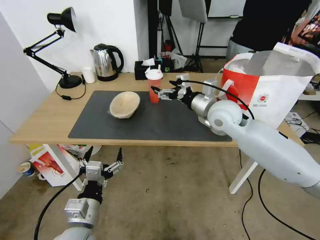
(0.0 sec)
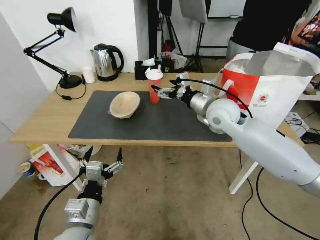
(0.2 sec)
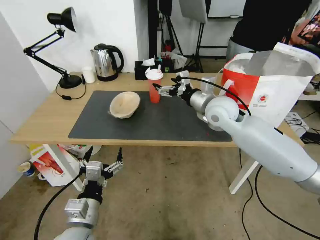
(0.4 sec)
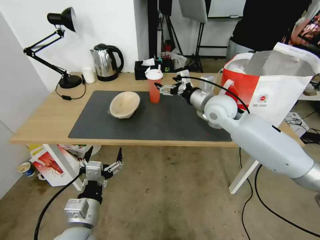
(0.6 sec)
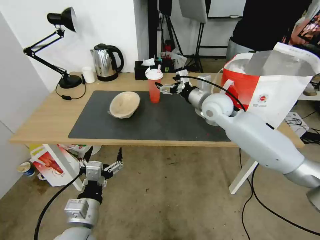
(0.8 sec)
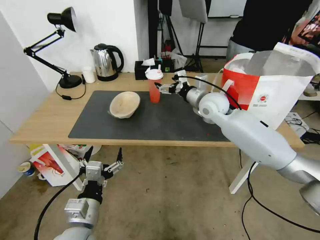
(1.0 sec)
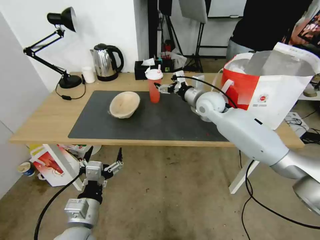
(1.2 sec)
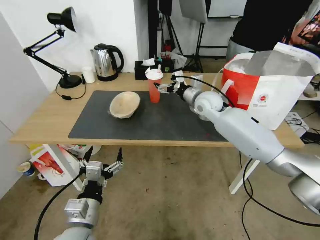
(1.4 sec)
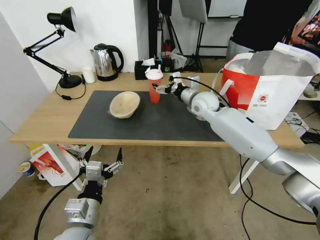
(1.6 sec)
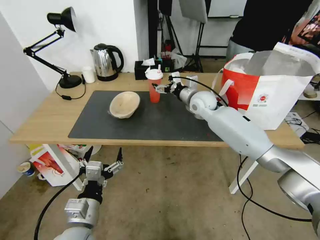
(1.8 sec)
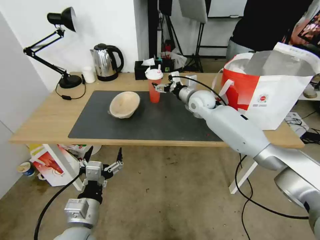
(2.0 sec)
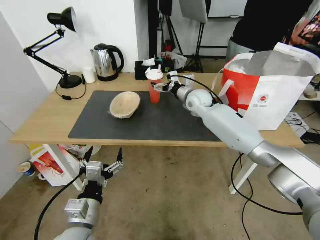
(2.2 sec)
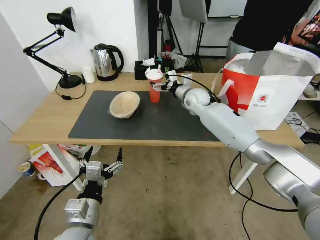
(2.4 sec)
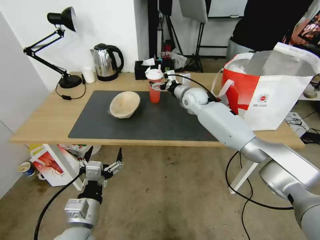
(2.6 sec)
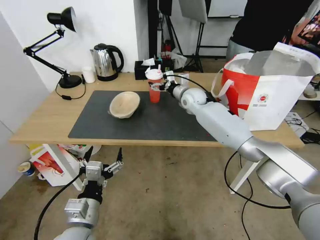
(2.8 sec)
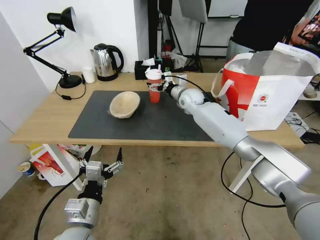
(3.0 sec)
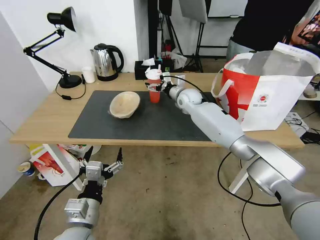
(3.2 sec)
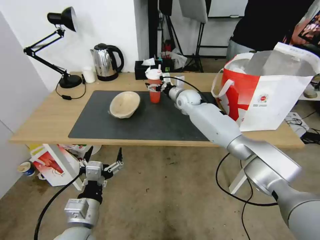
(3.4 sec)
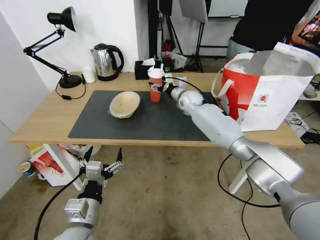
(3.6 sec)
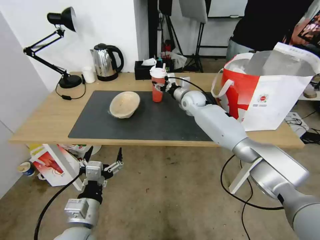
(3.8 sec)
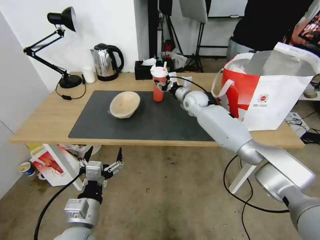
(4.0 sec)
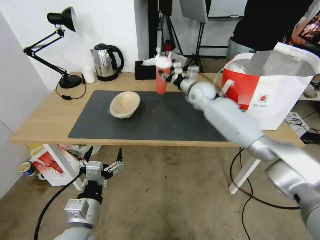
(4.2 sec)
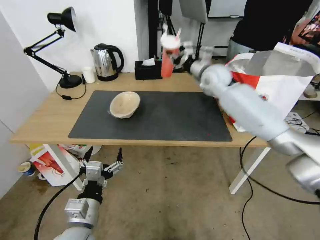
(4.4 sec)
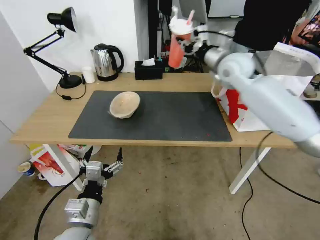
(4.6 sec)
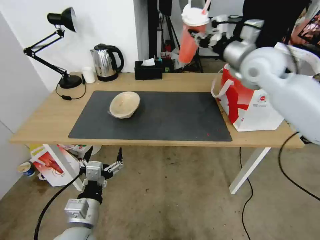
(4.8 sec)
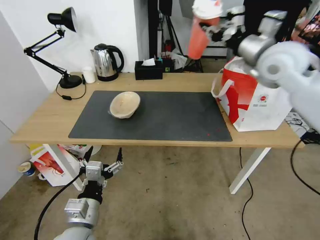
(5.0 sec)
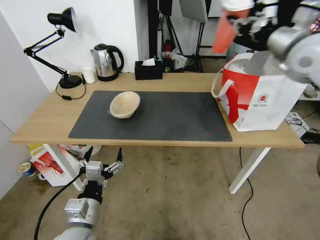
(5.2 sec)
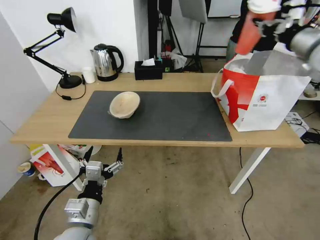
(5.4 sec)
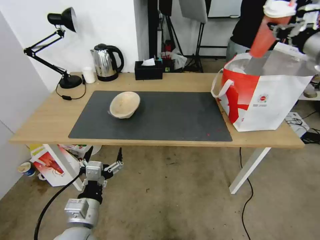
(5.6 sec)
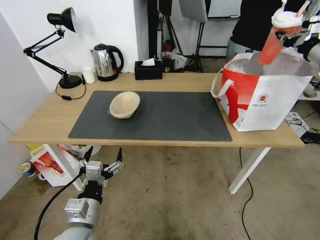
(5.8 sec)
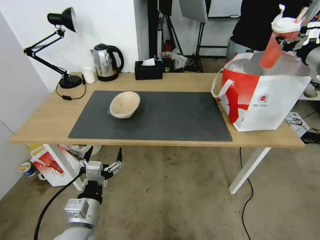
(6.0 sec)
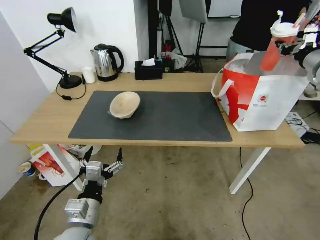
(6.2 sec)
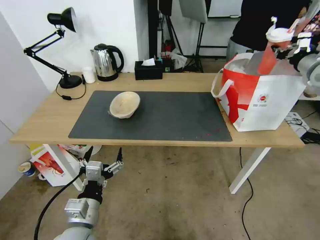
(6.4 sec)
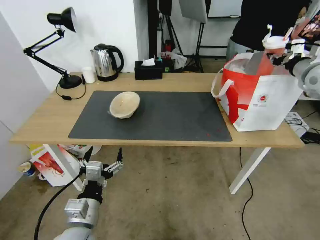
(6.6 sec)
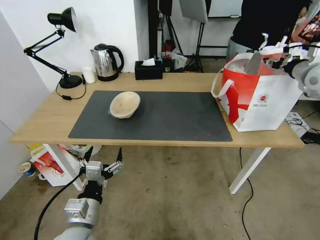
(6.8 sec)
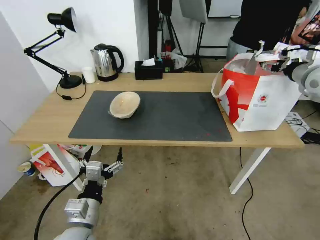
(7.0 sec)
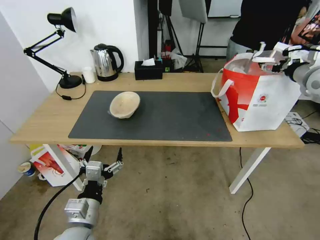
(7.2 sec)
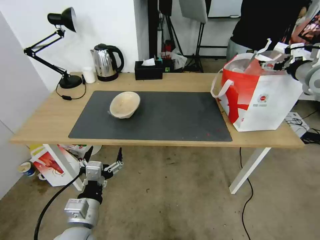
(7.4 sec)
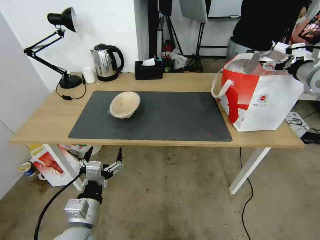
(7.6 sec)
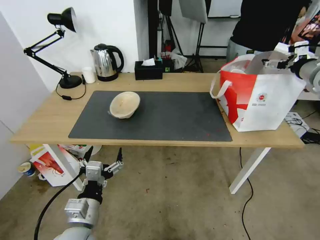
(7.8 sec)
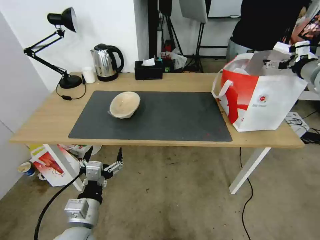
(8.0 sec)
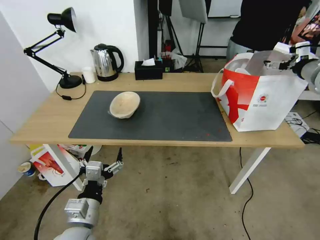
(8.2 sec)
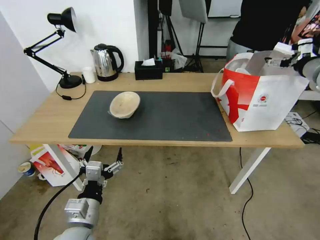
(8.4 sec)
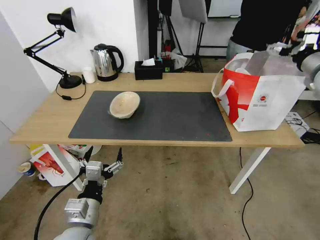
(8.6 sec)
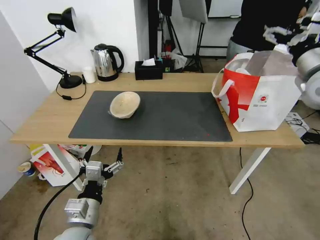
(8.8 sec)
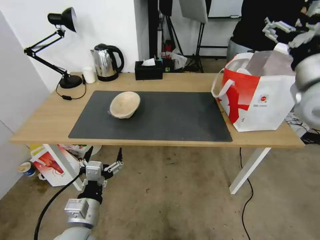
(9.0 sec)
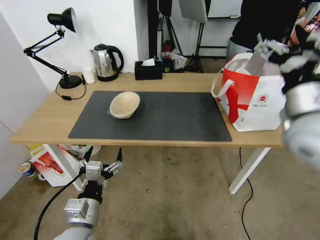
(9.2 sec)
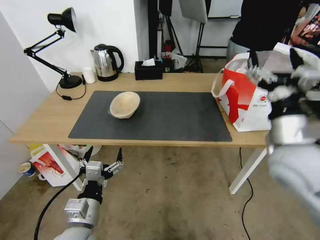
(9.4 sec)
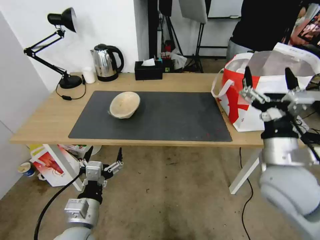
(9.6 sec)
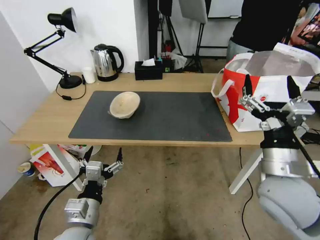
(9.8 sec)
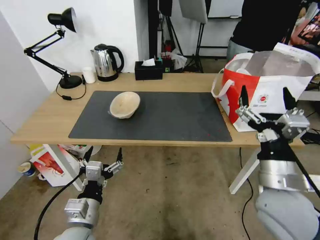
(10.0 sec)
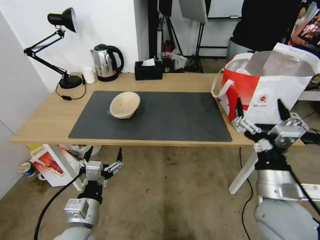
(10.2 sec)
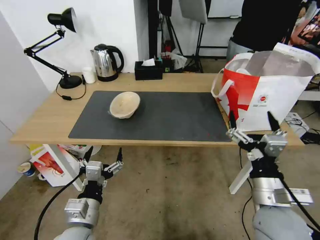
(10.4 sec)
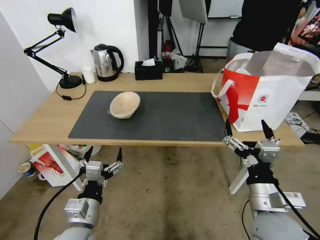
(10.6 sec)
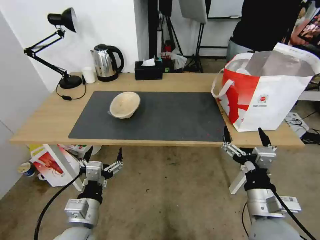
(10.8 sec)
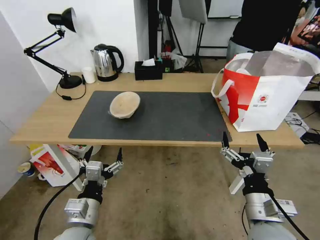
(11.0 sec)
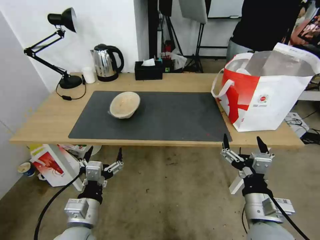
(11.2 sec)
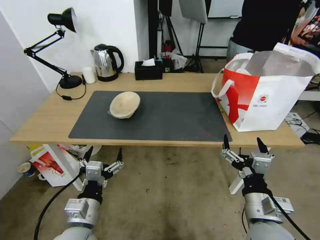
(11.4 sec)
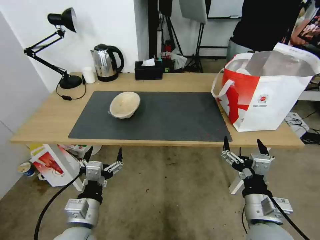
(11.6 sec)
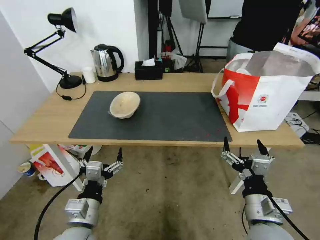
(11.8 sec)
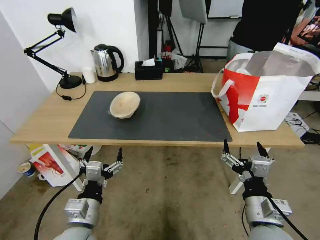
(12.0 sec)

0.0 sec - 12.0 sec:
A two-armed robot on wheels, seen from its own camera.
Task of the whole recording: Pick up the trash from the table and place it into the takeout bag.
0.0 sec - 1.6 sec: The right gripper travels forward by about 10 cm.
1.6 sec - 3.0 sec: The right gripper goes roughly 5 cm forward.
3.0 sec - 4.4 sec: The right gripper goes roughly 15 cm upward and to the right, and closes.
4.4 sec - 6.0 sec: The right gripper shifts about 30 cm to the right.
6.0 sec - 7.6 sec: The right gripper opens up.
7.6 sec - 9.0 sec: The right gripper moves to the left and backward, roughly 20 cm.
9.0 sec - 10.4 sec: The right gripper moves downward, backward and to the left, some 30 cm.
10.4 sec - 12.0 sec: There are only small adjustments of the grippers.

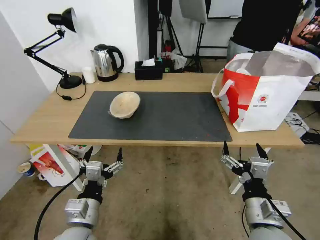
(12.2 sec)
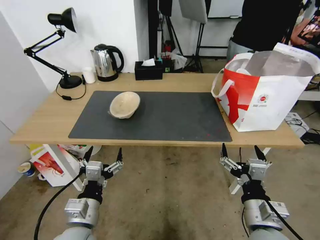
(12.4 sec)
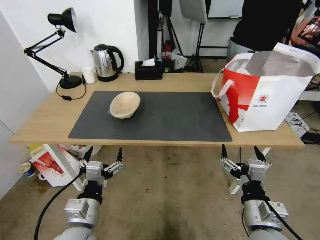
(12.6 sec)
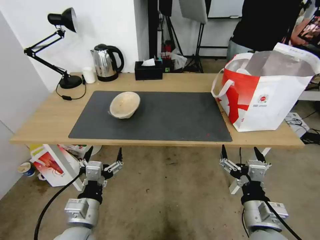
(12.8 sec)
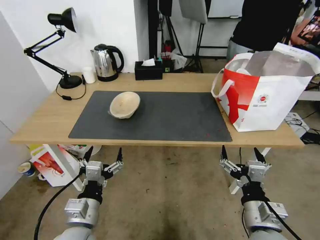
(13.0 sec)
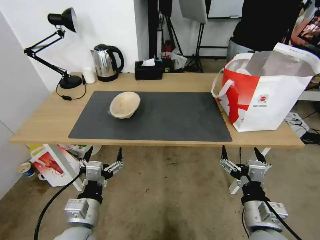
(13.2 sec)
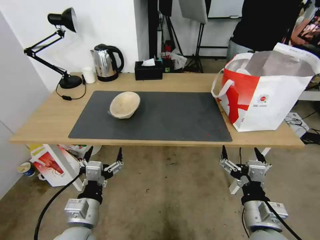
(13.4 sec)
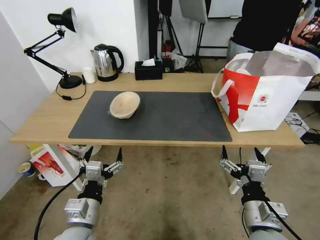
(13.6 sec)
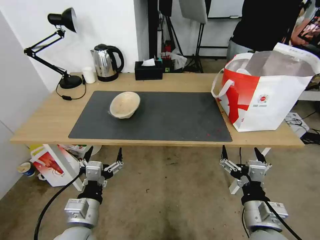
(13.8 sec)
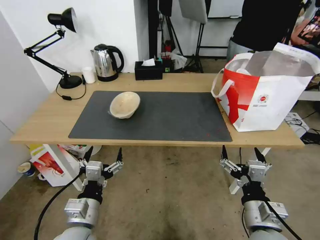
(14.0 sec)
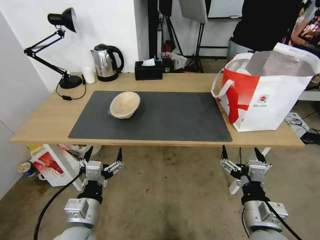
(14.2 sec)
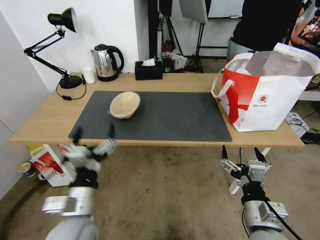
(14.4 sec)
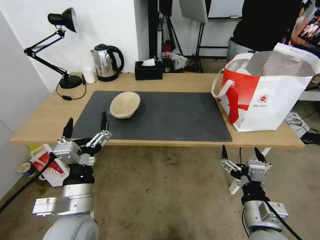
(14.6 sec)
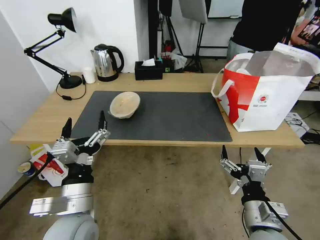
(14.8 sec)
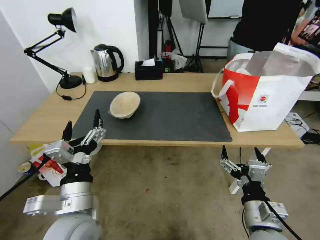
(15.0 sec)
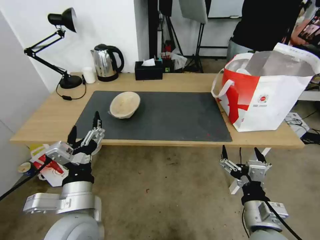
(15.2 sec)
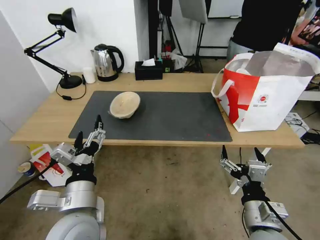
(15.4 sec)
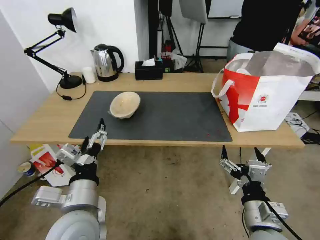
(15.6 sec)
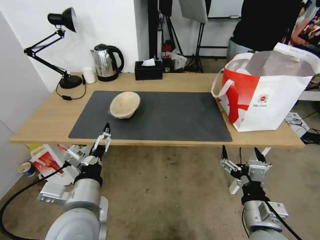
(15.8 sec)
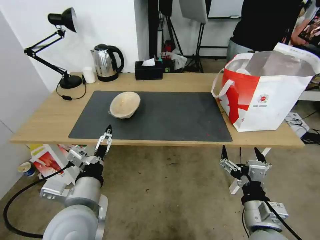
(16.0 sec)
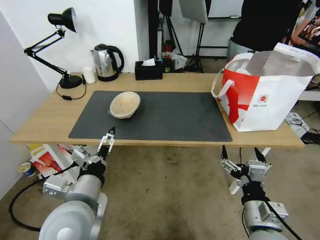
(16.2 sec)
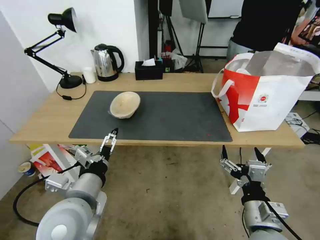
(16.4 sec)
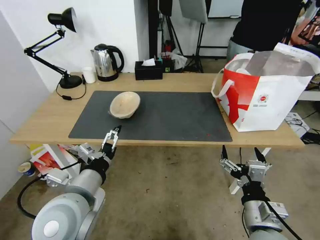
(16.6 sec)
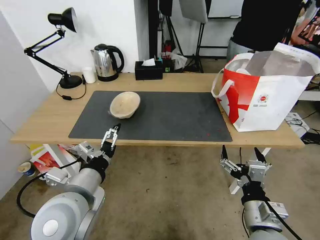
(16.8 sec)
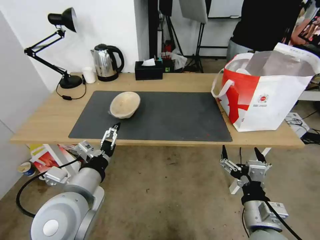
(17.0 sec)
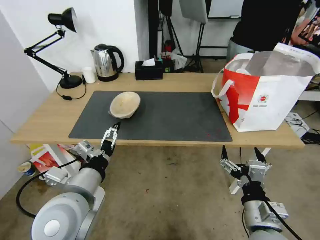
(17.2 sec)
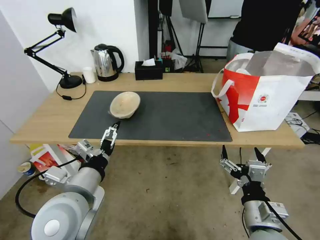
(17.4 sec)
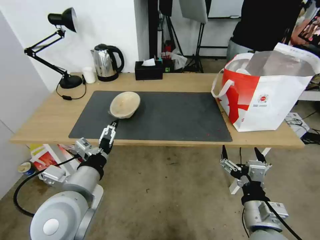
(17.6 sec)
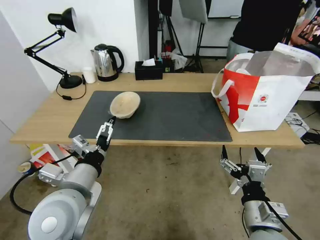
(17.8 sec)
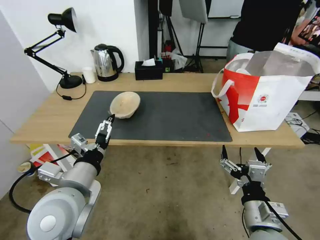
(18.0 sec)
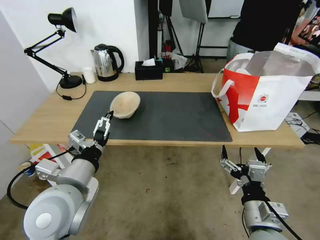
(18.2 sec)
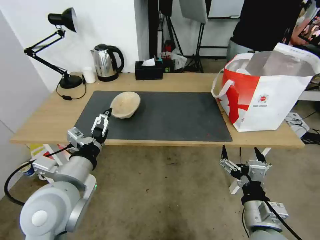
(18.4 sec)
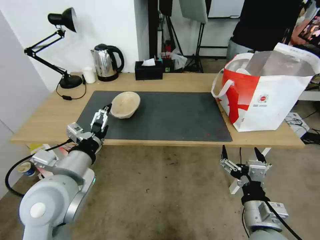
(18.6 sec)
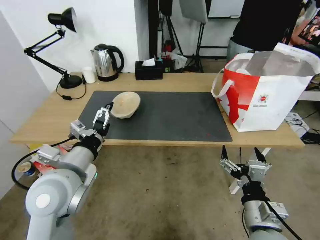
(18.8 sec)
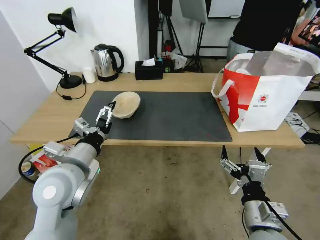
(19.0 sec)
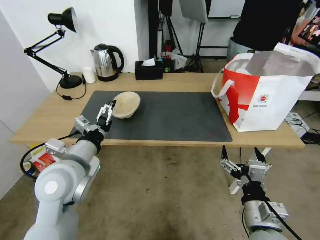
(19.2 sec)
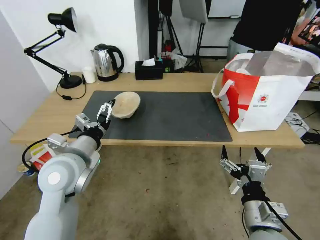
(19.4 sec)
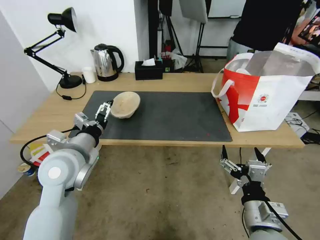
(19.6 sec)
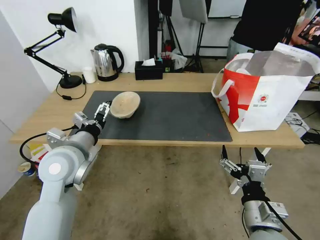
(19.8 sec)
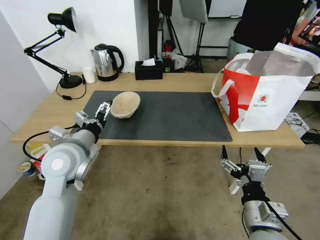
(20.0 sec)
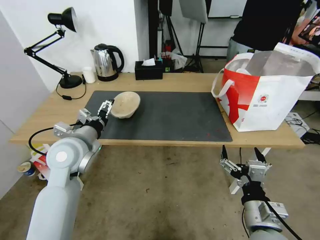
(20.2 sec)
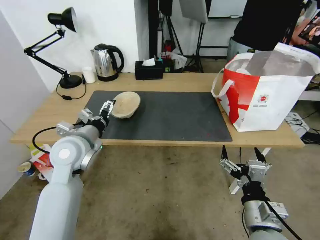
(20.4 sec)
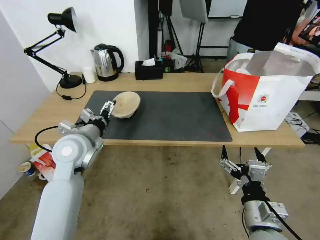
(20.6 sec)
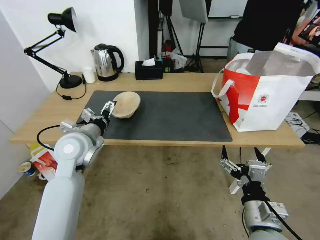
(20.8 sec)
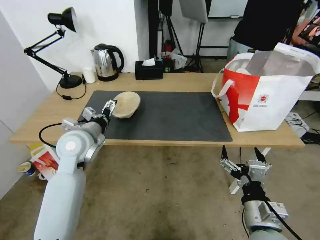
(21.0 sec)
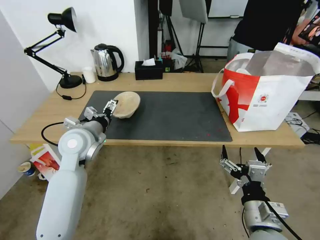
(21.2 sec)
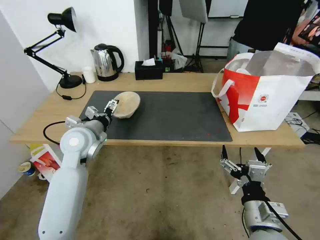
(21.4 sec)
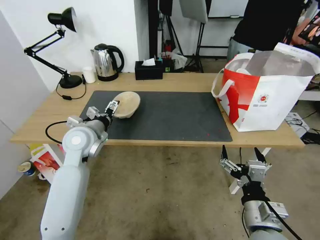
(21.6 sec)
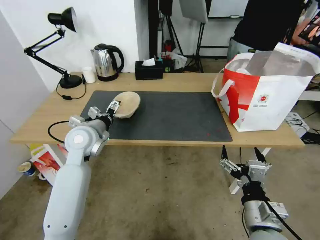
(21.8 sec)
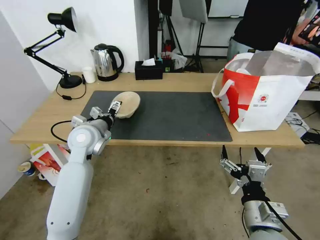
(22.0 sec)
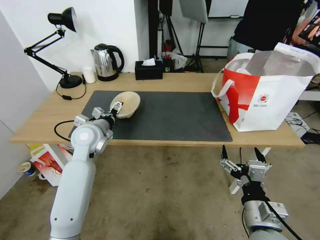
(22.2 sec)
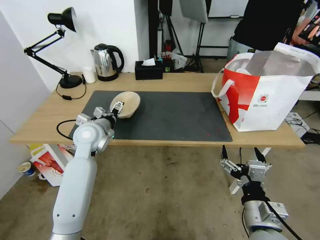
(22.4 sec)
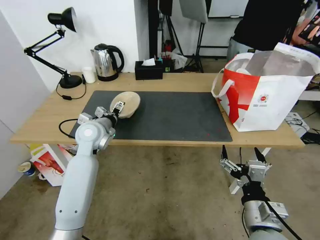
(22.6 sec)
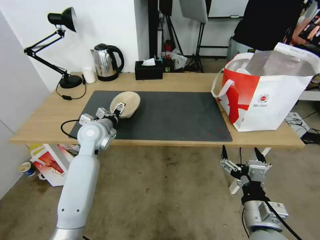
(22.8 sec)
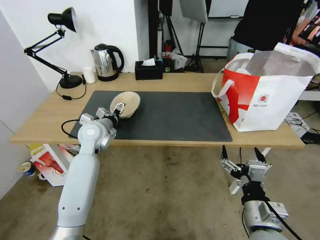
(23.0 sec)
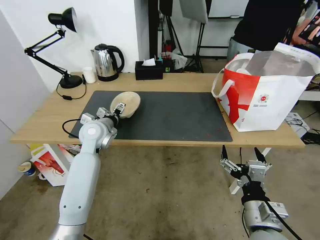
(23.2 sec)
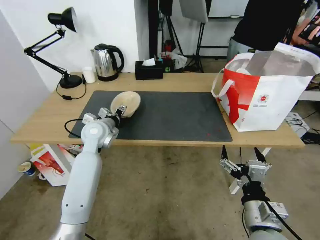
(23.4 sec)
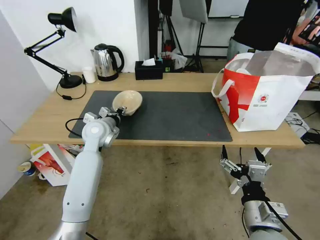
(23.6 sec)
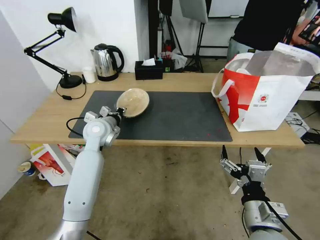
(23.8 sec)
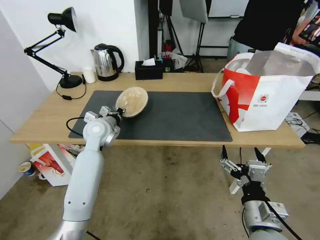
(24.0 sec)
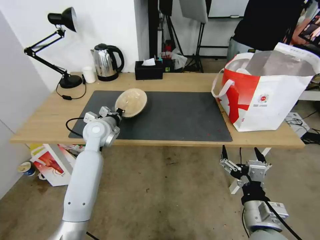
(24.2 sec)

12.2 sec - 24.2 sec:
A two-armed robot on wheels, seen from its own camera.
Task of the whole recording: Pick up the trash from the table and place it into the takeout bag.
12.2 sec - 13.8 sec: Neither gripper changes place.
13.8 sec - 15.2 sec: The left gripper heads upward, covering some 10 cm.
16.6 sec - 18.2 sec: The grippers move only a little.
18.2 sec - 19.8 sec: The left gripper is displaced forward by roughly 10 cm.
19.8 sec - 21.2 sec: The left gripper travels forward by some 10 cm.
21.2 sec - 22.6 sec: The left gripper shifts roughly 5 cm forward.
22.6 sec - 24.2 sec: The left gripper closes.
